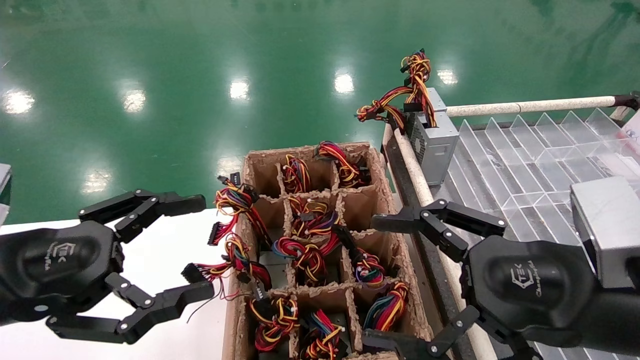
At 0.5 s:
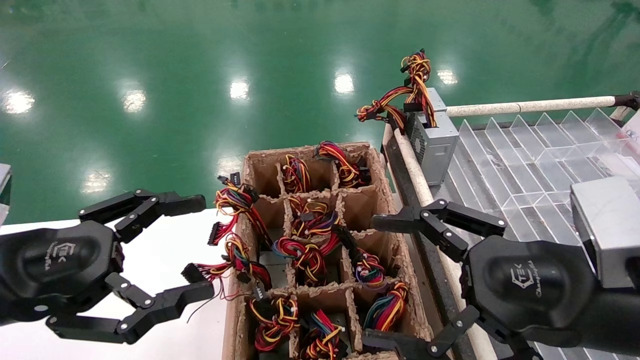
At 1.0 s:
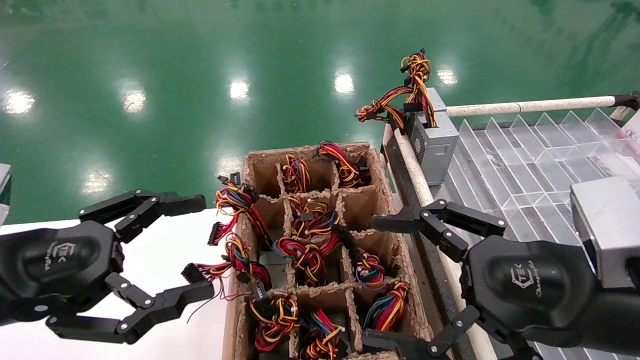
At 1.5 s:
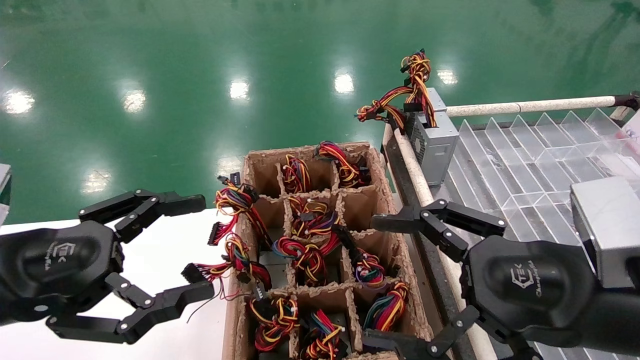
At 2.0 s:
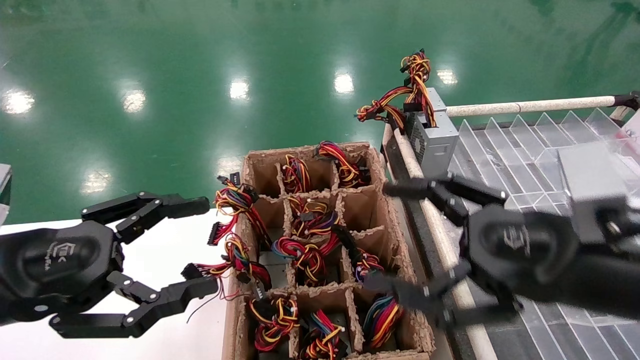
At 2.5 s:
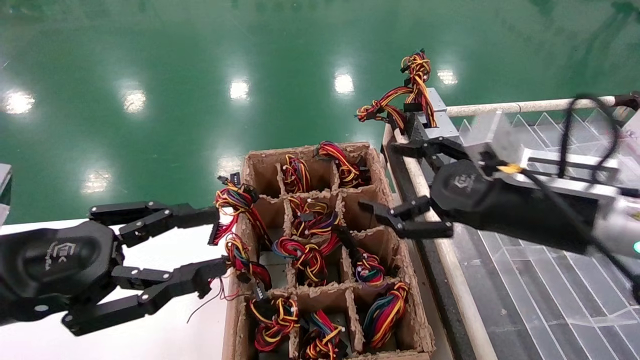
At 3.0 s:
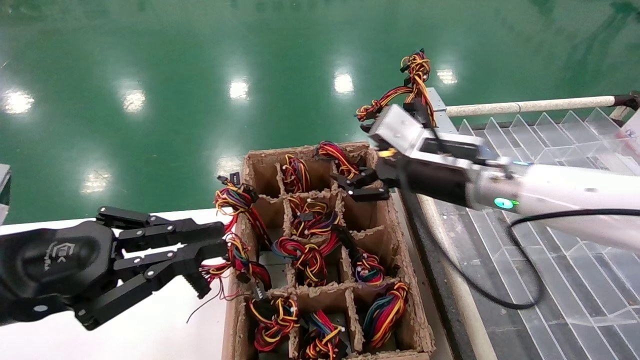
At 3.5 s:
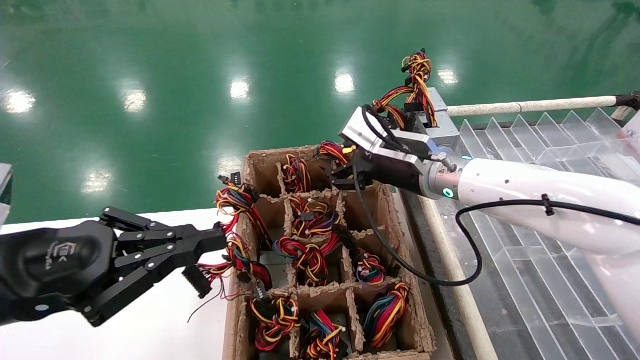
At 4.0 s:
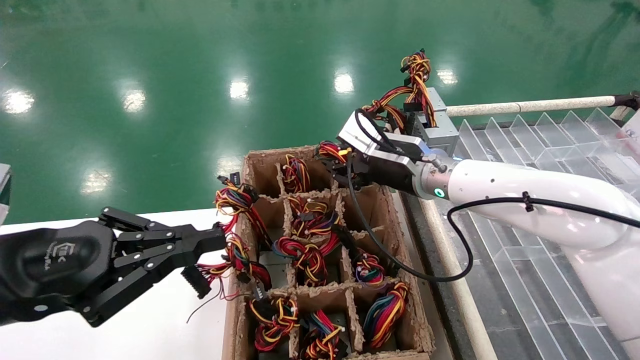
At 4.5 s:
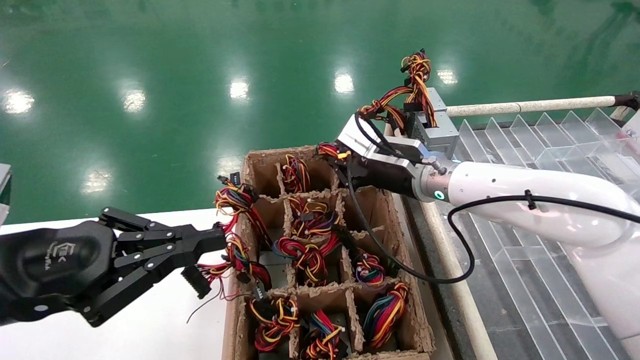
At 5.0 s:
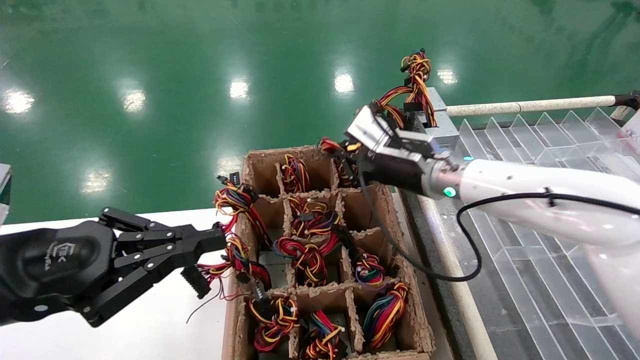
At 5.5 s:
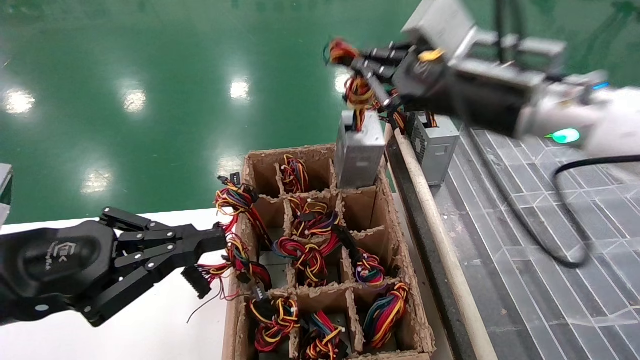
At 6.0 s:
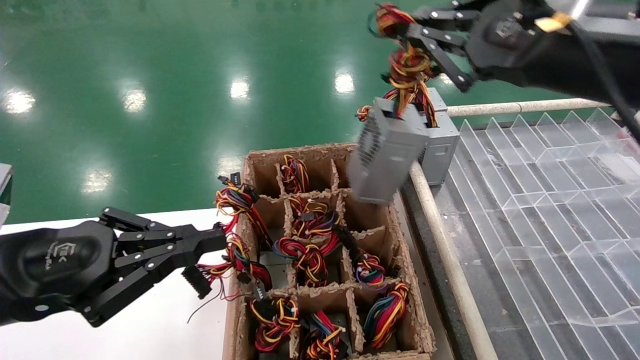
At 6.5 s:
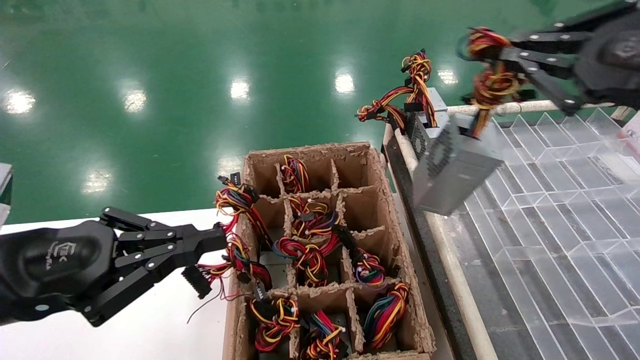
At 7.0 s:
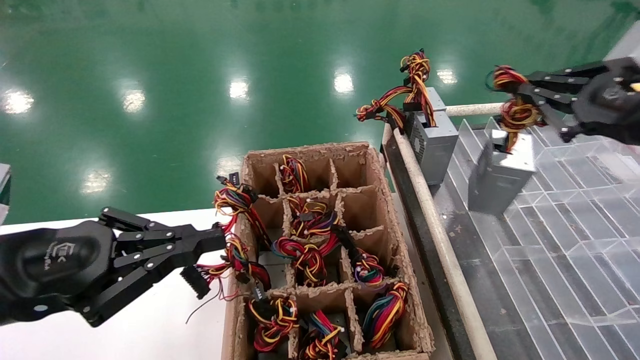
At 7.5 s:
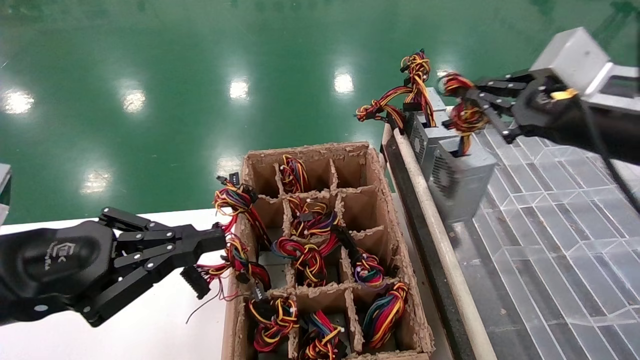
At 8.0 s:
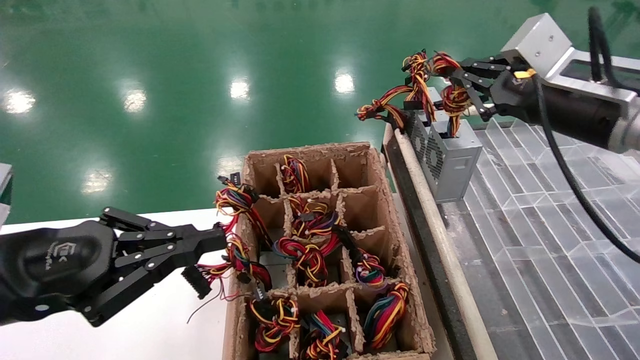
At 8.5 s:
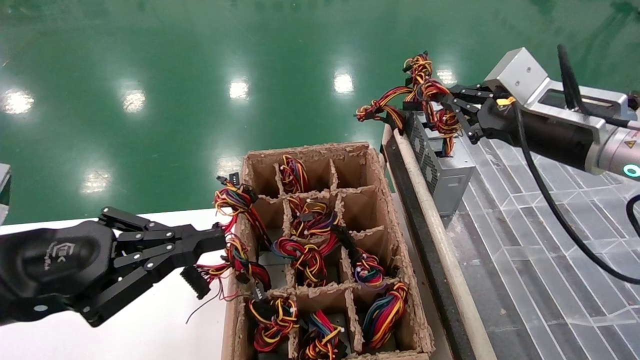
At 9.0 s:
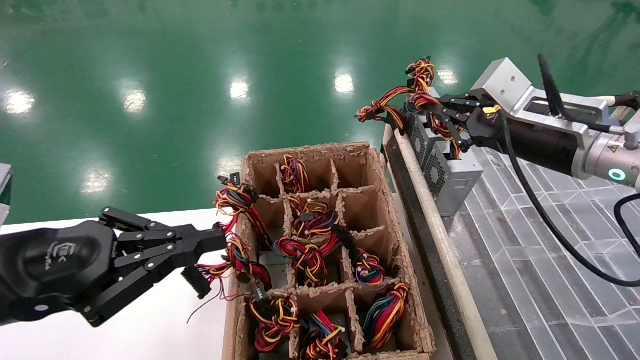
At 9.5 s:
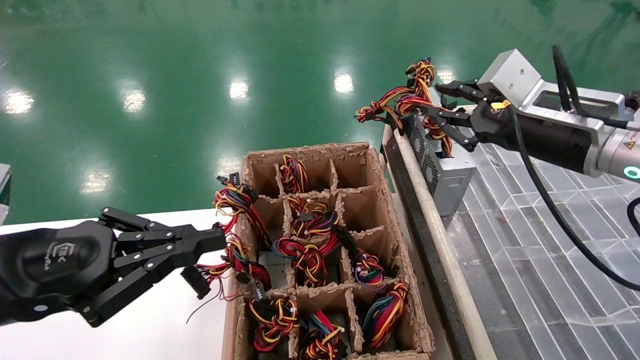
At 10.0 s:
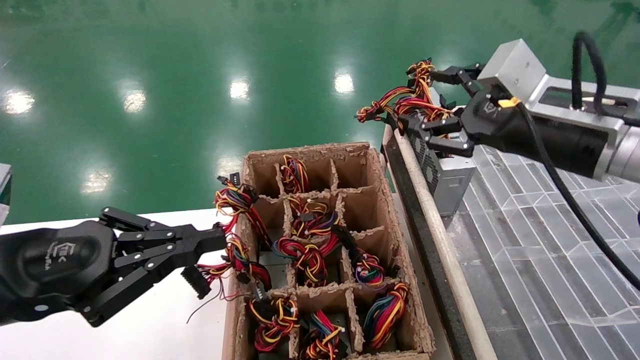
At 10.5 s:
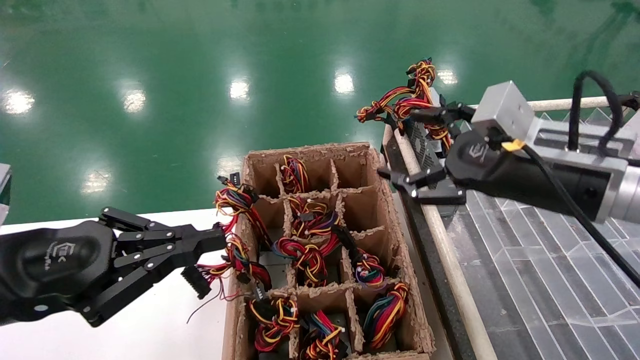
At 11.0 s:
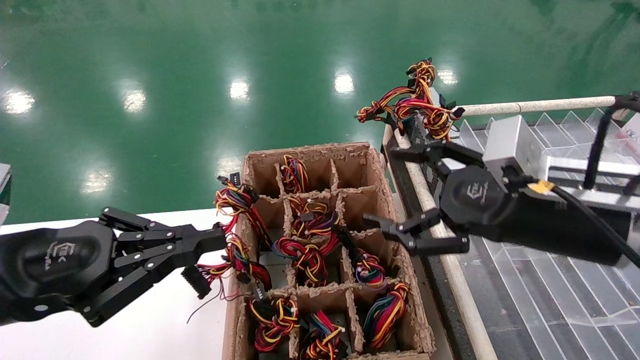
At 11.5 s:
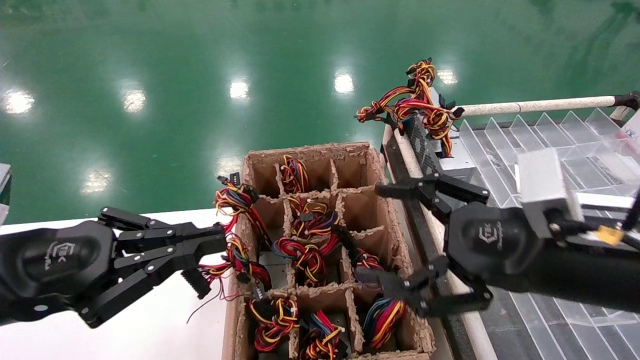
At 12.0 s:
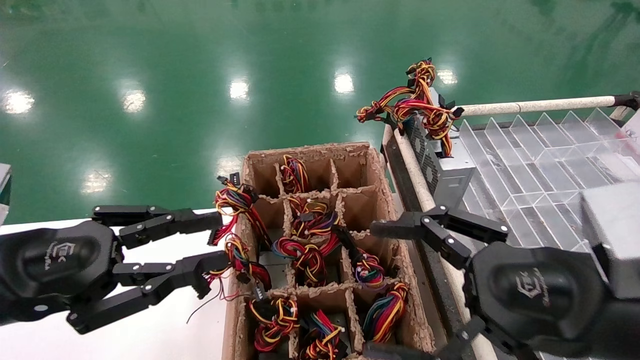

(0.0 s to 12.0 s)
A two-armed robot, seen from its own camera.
Step, 2.5 s - 4.5 s: Grab the main unit power supply from the containment box.
Step, 5.0 s - 9.5 s: Place the main unit power supply in the designated area.
0.0 s - 2.0 s: The grippers stay close to where they were, moving slightly.
2.0 s - 4.0 s: The left gripper closes up, while the right gripper moves forward and to the left, roughly 25 cm.
4.0 s - 6.0 s: The right gripper is displaced backward, upward and to the right by roughly 25 cm, and closes.
6.0 s - 8.0 s: The right gripper goes about 10 cm forward and downward.
8.0 s - 10.0 s: The right gripper opens its fingers.
10.0 s - 12.0 s: The right gripper shifts roughly 15 cm backward and downward, and opens its fingers.

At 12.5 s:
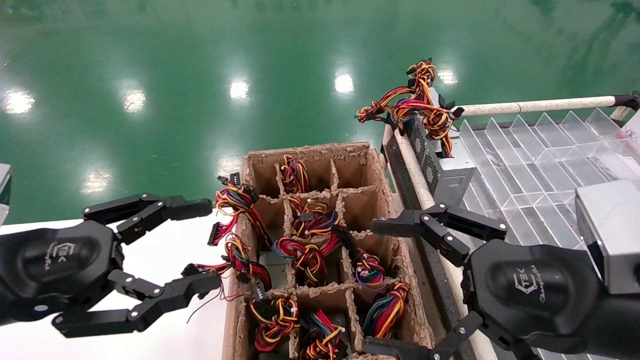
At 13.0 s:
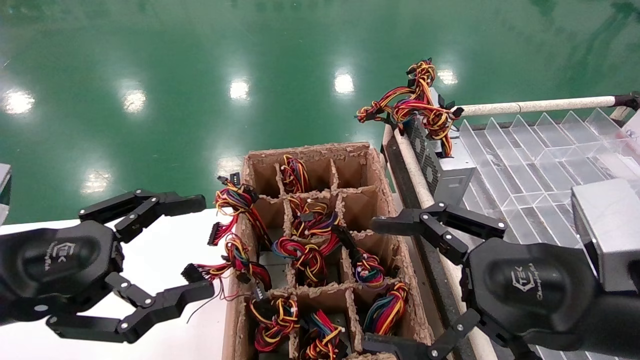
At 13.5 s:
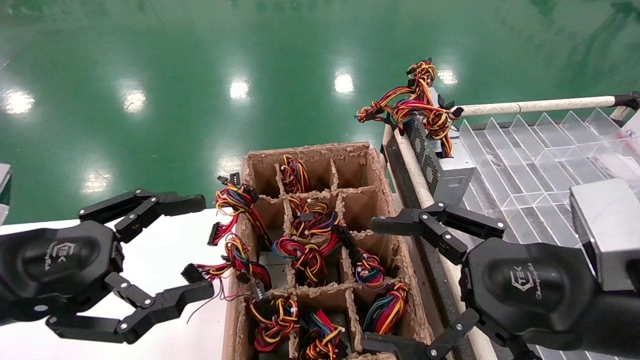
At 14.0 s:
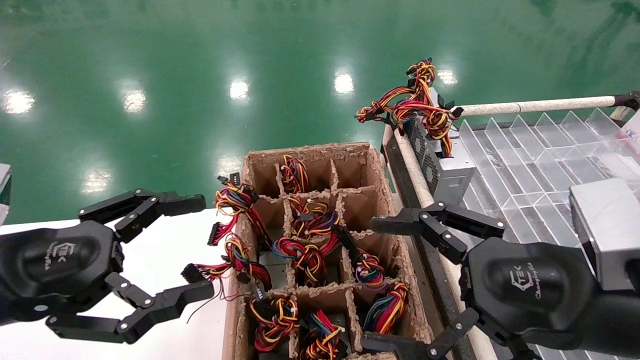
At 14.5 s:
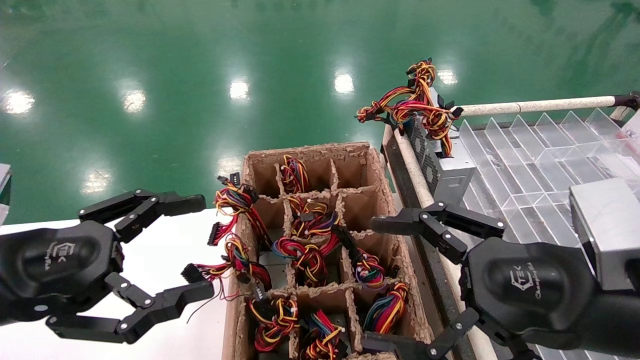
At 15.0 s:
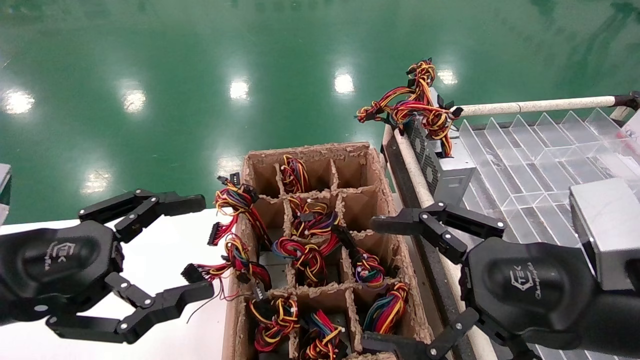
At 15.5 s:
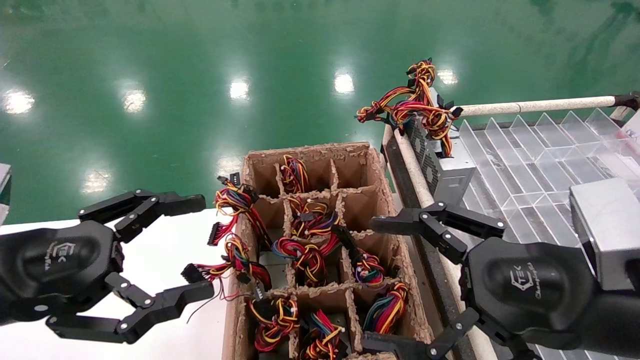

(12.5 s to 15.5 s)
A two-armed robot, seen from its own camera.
12.5 s - 14.0 s: The left gripper opens up.
14.0 s - 15.5 s: The two grippers keep their place.

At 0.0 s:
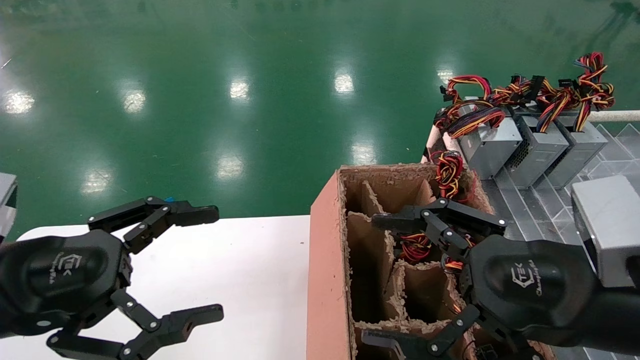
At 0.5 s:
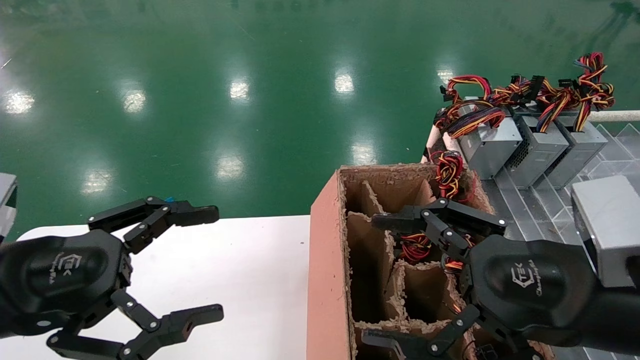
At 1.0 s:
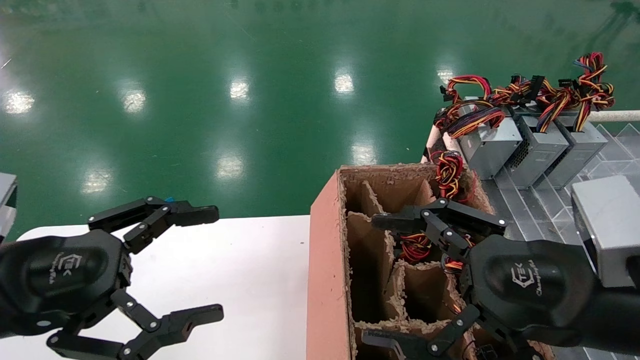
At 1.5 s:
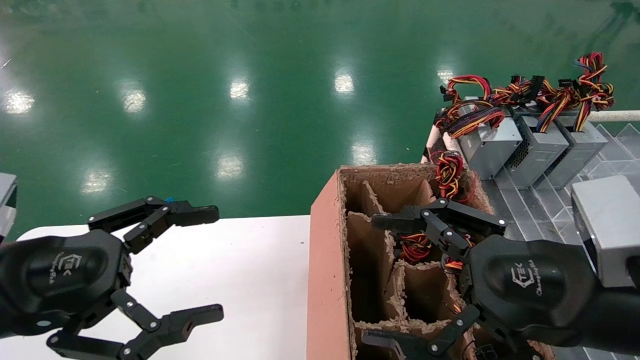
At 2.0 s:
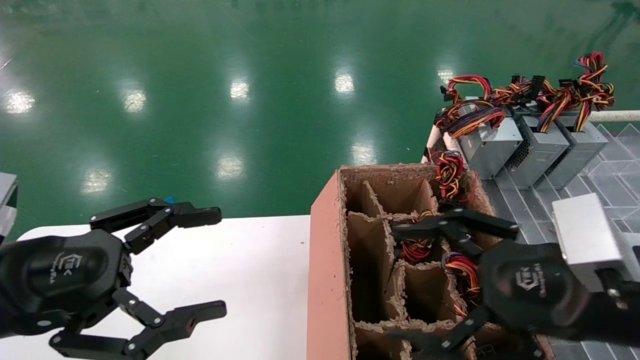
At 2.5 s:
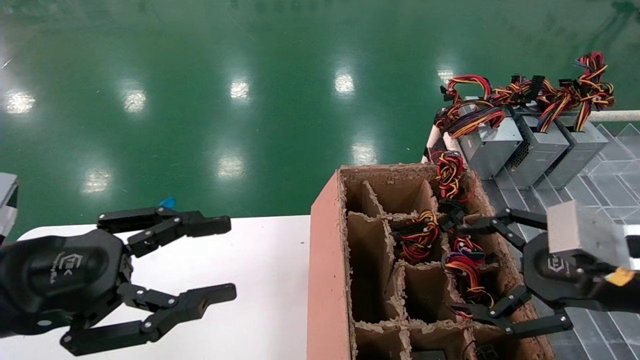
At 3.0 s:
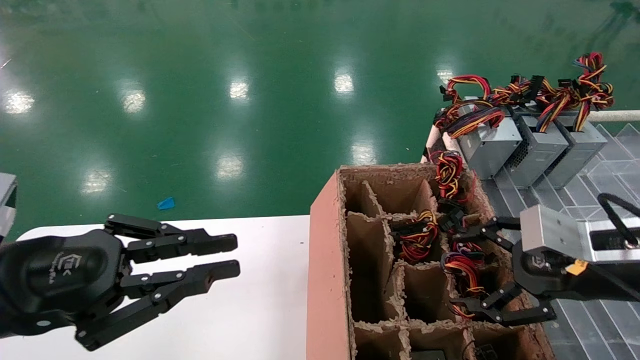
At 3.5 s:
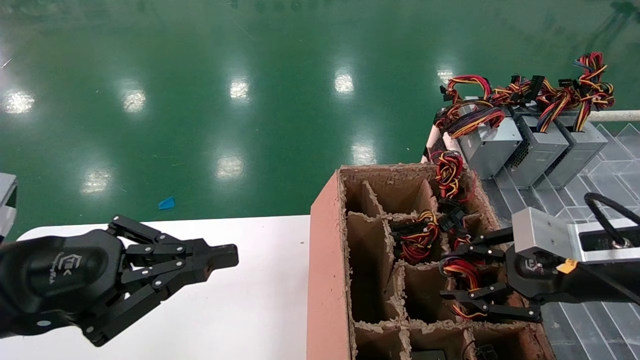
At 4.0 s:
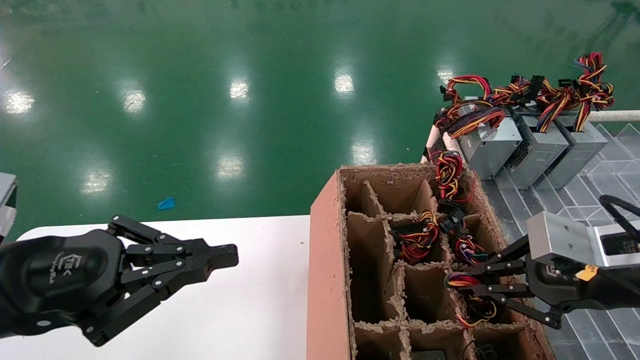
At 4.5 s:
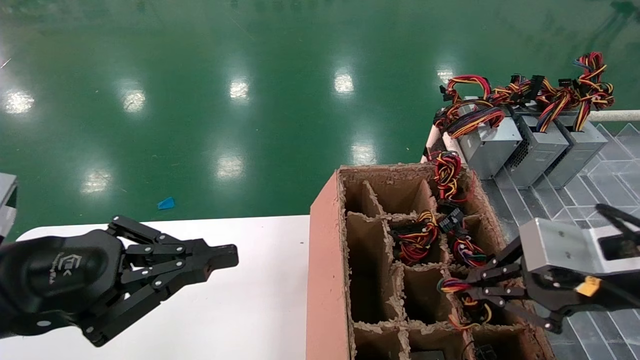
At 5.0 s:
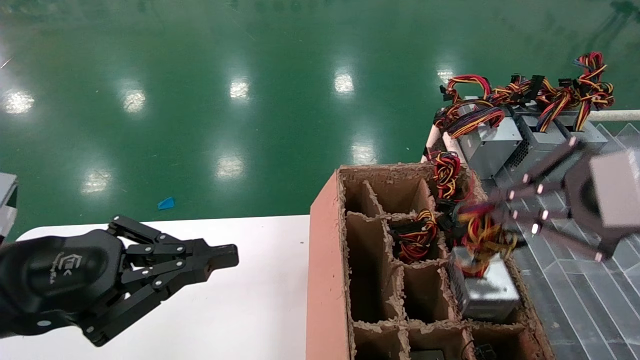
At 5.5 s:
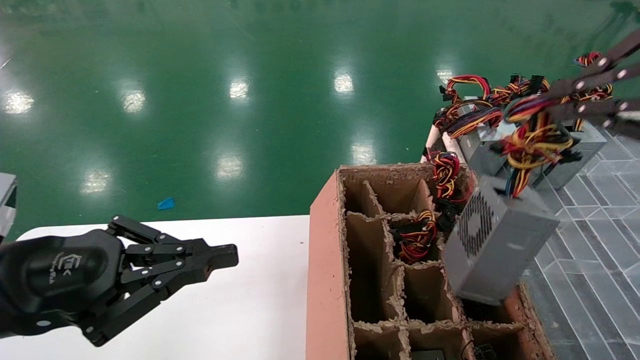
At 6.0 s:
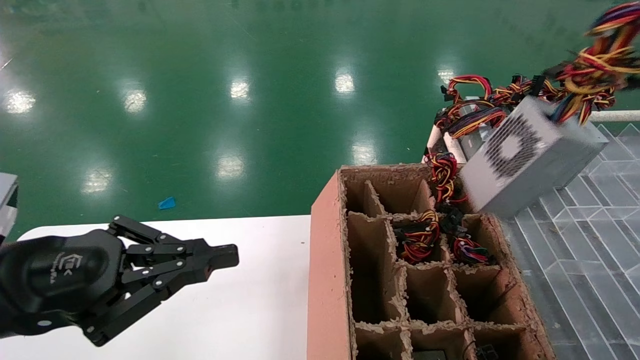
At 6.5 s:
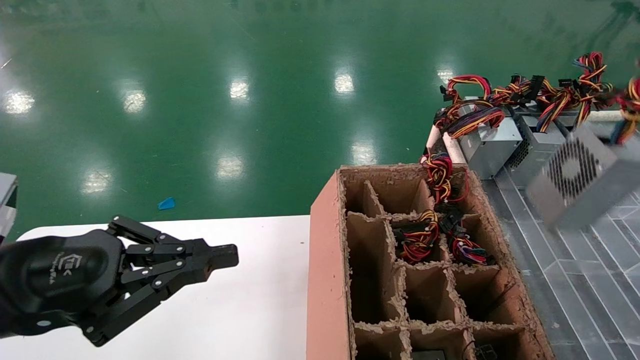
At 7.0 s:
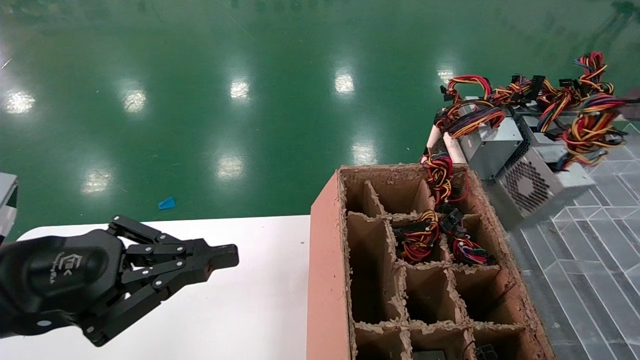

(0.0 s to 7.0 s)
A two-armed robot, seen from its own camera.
Step, 2.5 s - 4.0 s: Grab the main unit power supply from the containment box.
0.0 s - 2.0 s: There are only small adjustments of the grippers.
2.0 s - 3.5 s: The left gripper closes its fingers, while the right gripper moves forward and to the right, roughly 10 cm, and closes.
3.5 s - 5.0 s: The right gripper is displaced upward and backward by roughly 15 cm, and closes.
5.0 s - 7.0 s: The right gripper shifts some 15 cm to the right.
